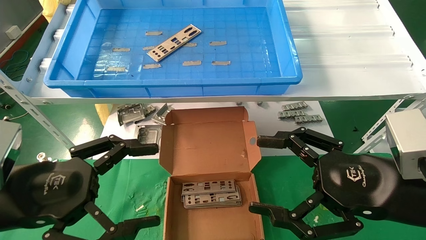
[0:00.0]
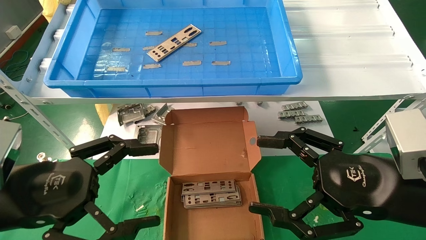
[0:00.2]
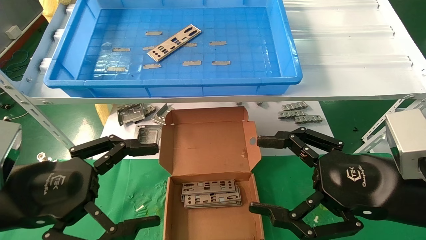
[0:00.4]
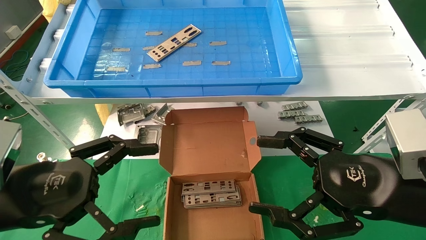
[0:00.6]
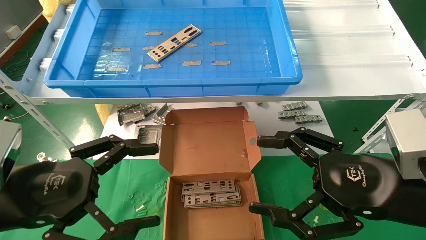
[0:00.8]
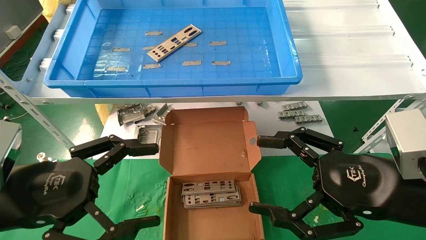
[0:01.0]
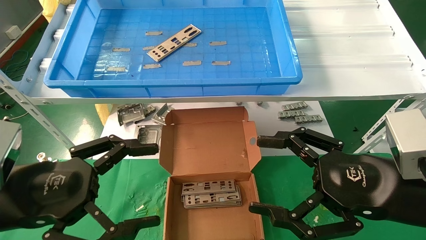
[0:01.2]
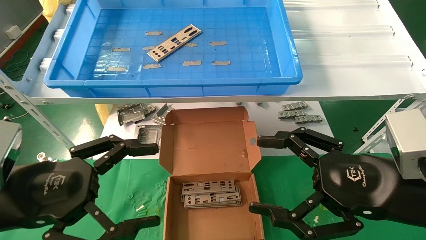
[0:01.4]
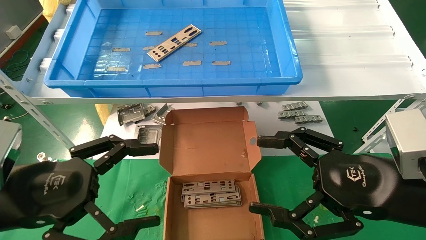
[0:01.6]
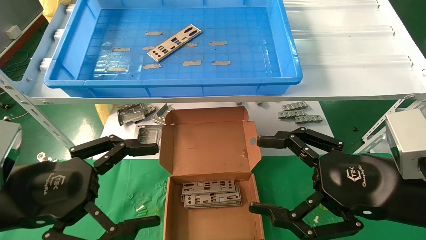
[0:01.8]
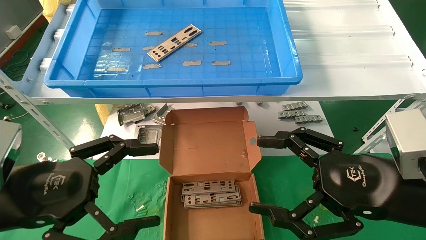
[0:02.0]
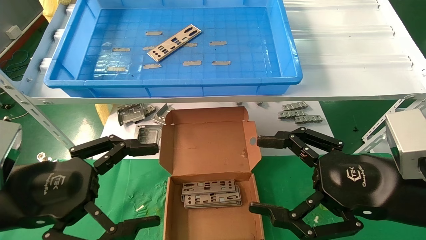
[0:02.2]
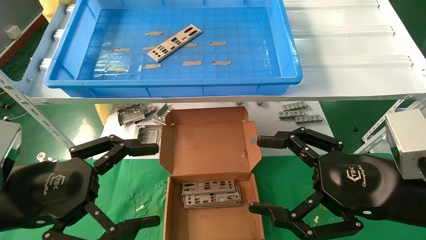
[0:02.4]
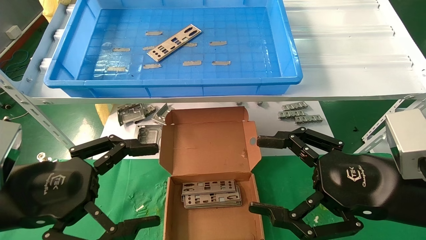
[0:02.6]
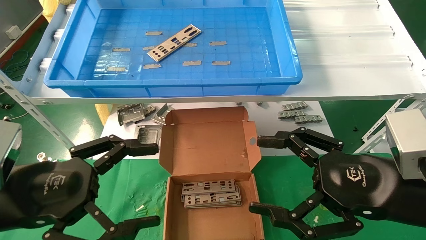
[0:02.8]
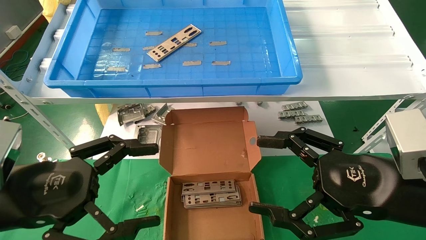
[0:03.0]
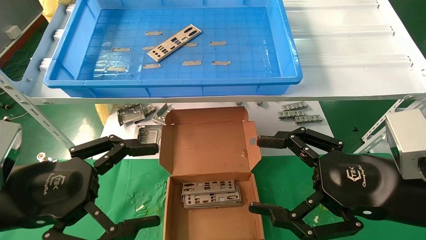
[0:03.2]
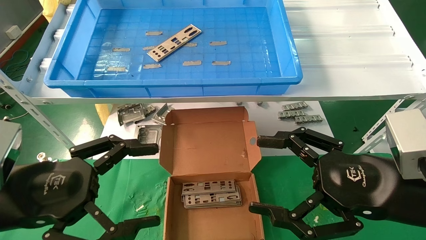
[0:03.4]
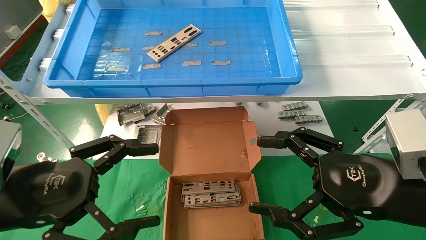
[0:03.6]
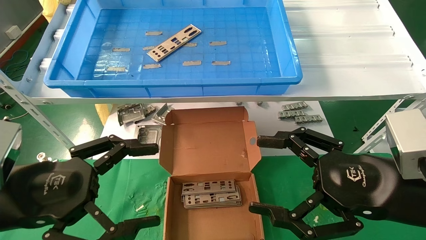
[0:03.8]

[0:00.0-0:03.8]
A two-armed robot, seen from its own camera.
Task of the whole recording: pick up the parts on the tray and put them in the cardboard box.
0:00.0 to 0:03.8: Both grippers stay put.

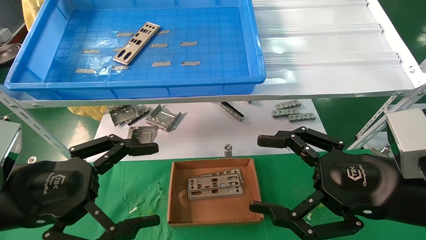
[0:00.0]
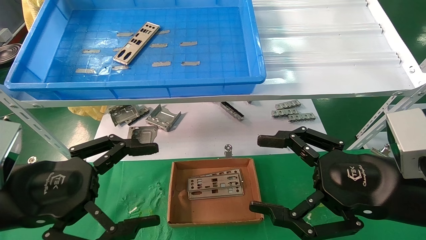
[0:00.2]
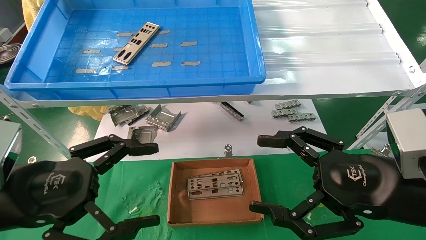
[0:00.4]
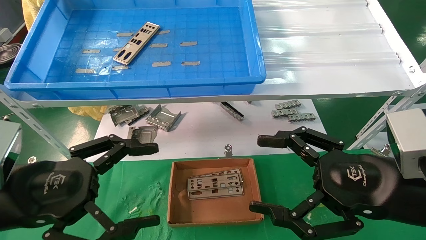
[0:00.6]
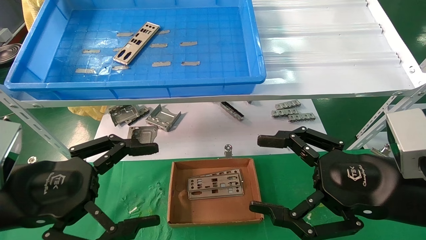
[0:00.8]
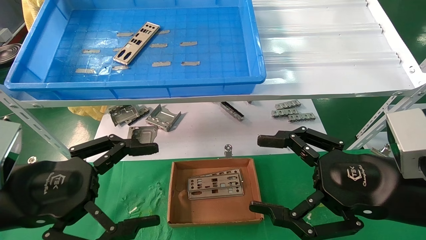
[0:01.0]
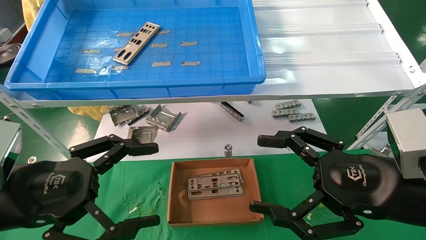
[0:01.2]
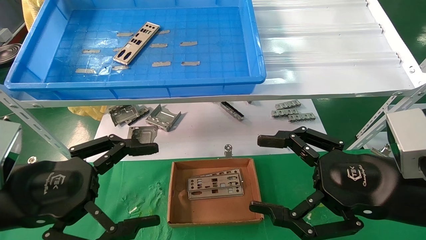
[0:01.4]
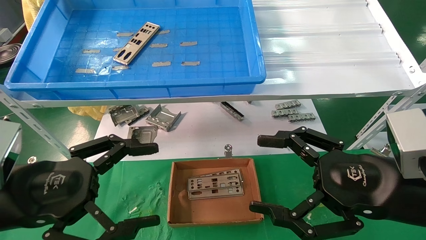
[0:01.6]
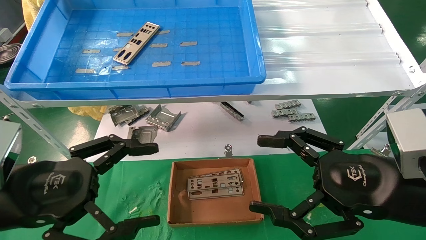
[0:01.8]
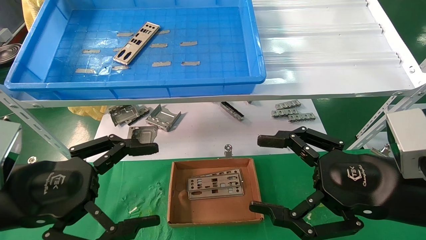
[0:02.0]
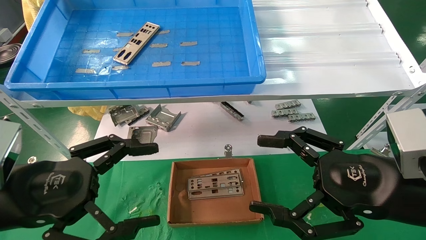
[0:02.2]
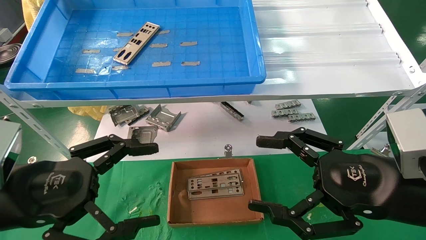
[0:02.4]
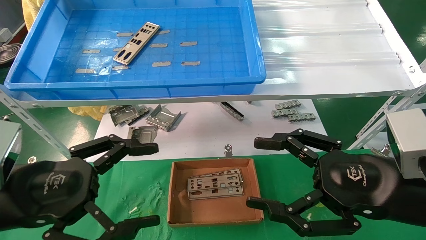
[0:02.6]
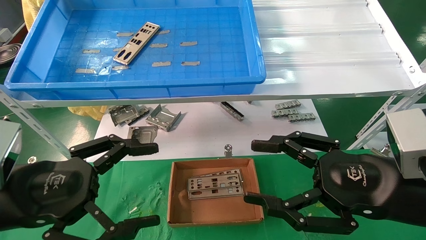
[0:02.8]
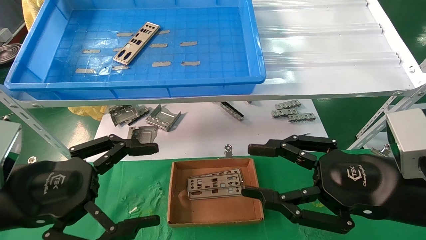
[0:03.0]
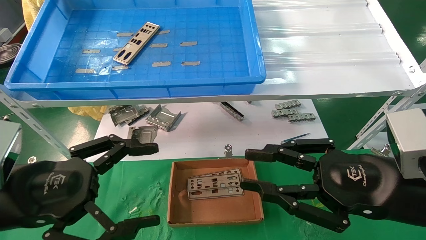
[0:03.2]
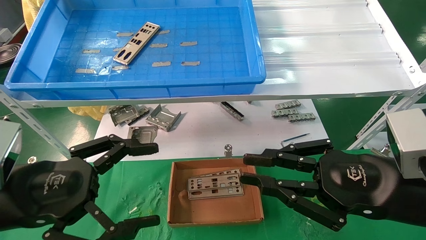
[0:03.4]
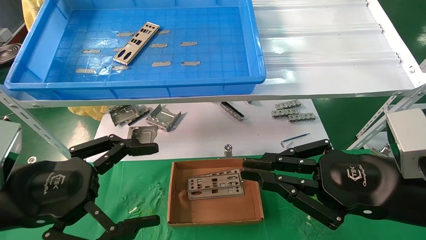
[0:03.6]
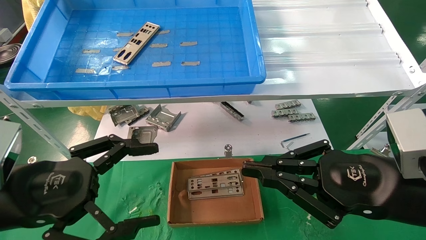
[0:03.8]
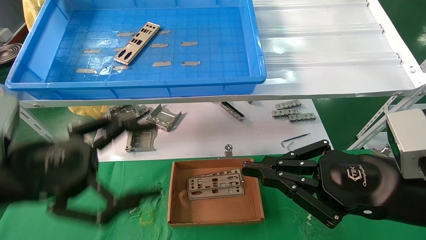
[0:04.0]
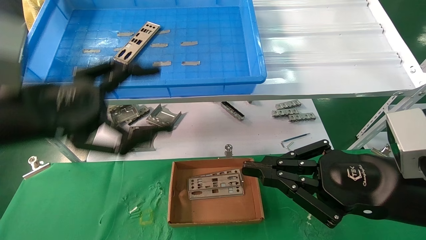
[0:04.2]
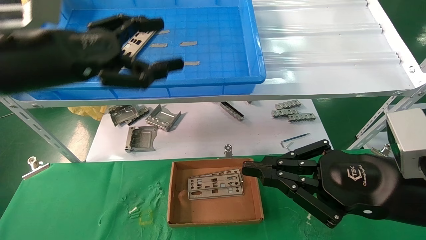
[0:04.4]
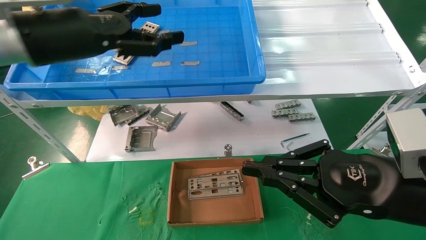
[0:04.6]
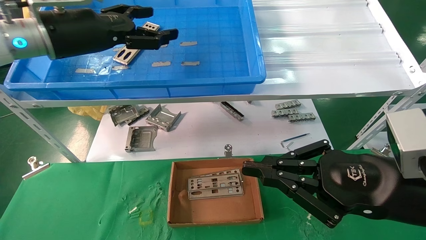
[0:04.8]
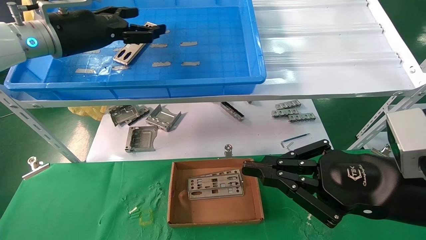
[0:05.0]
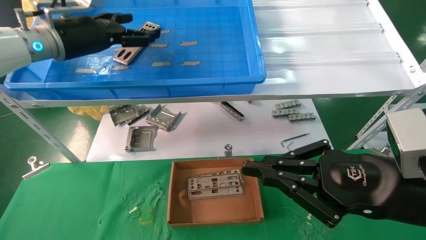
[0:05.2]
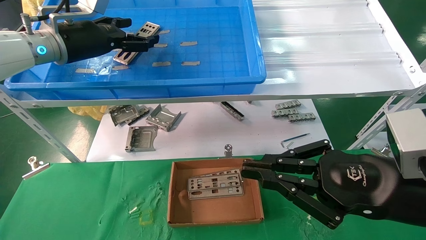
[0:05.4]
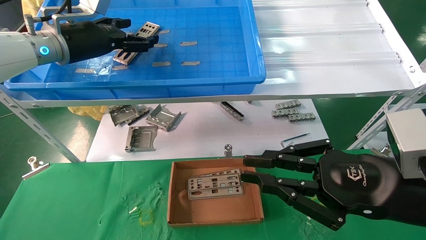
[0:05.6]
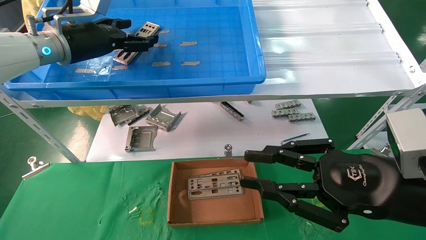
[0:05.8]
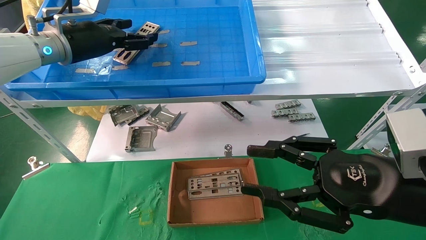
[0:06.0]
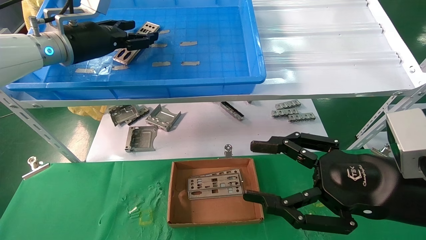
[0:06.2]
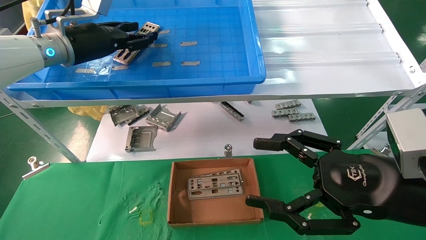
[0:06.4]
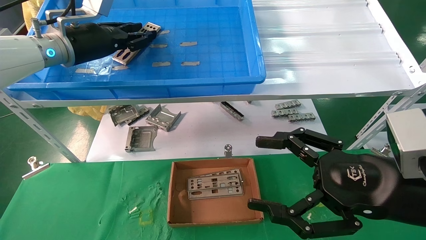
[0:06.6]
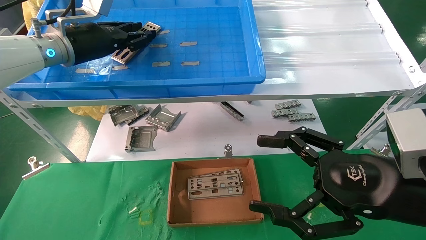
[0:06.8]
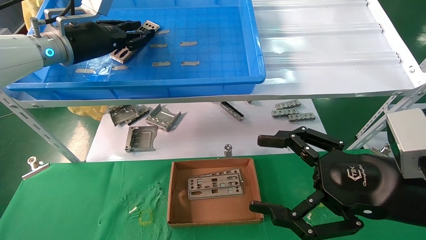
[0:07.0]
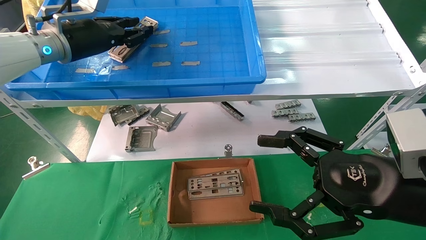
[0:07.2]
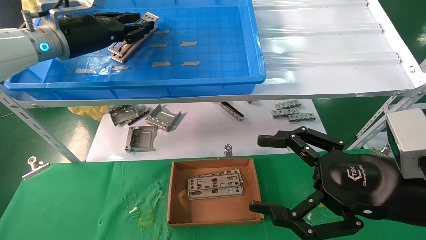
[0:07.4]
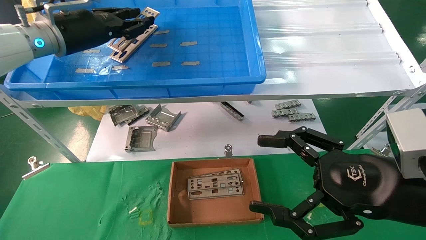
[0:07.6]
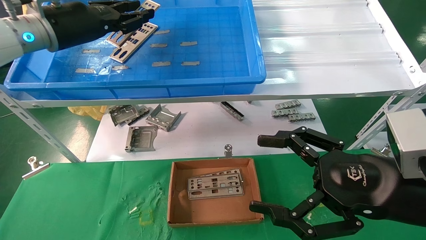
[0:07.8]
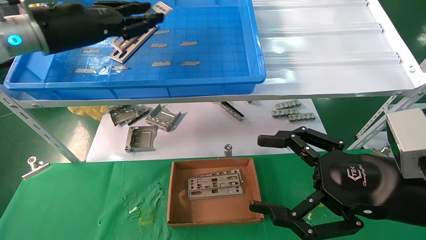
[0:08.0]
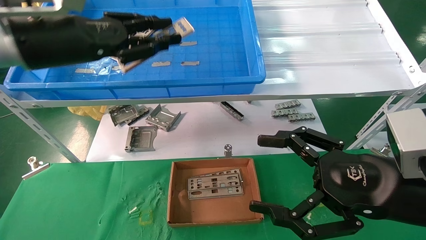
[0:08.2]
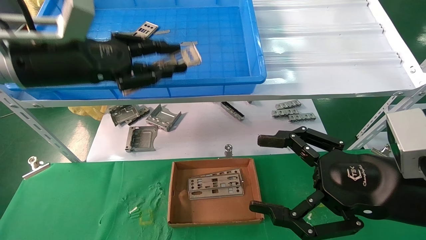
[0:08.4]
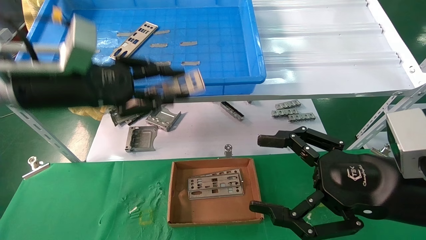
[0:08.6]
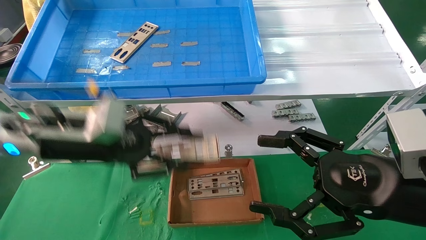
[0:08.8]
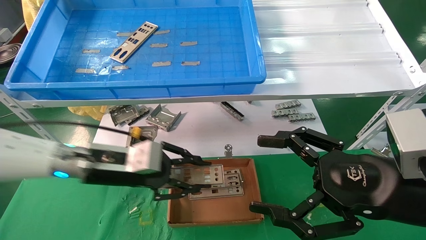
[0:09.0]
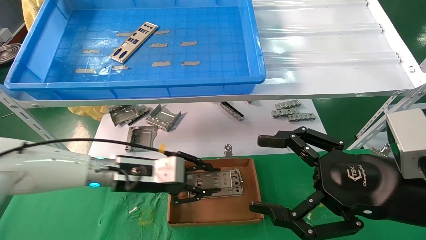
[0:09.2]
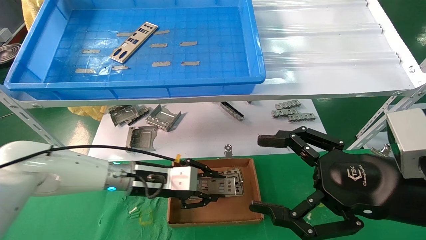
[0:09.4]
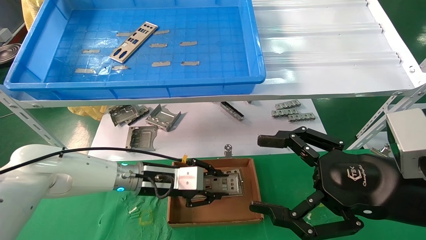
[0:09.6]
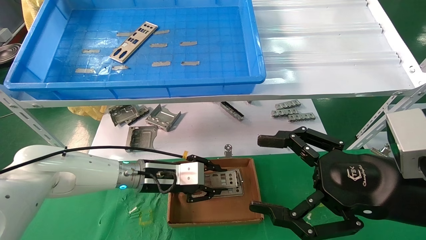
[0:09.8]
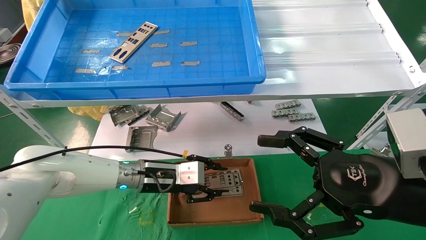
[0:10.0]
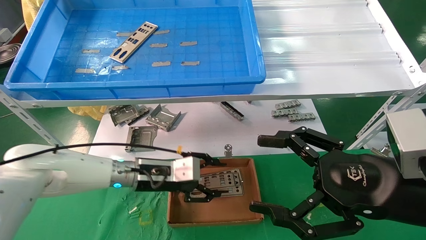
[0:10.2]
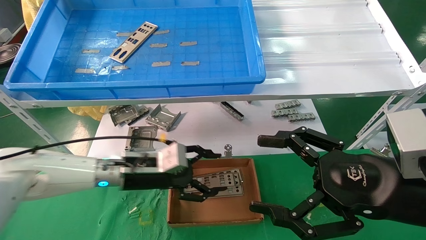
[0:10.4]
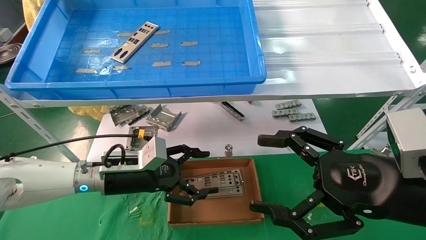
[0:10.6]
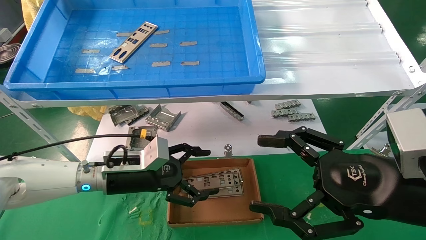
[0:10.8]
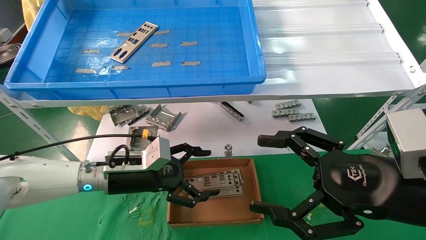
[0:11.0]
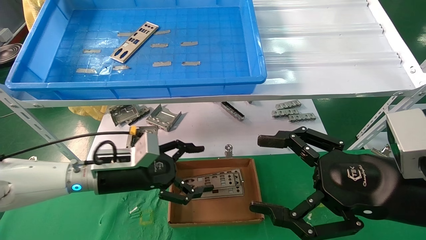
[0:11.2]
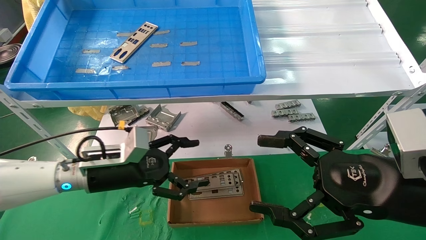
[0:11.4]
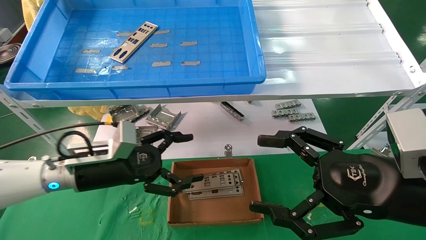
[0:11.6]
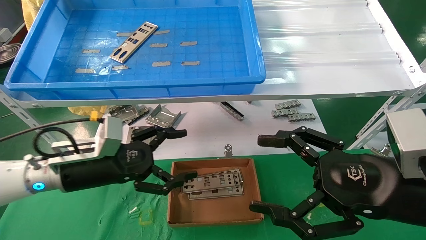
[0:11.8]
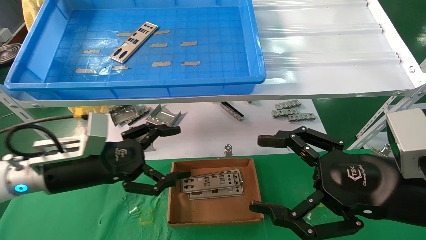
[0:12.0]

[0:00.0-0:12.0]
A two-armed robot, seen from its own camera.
Task of the whole recording: pick up the parts on the tray and put them in the cardboard box.
Step, 0:04.6 to 0:06.8: Pick up the IO bracket from the container box.
Step, 0:07.0 to 0:11.6: Place the IO bracket into the ingredient slot.
0:00.0 to 0:03.0: Neither gripper changes place.
0:03.0 to 0:04.4: The left gripper goes approximately 15 cm upward and forward; the right gripper closes.
0:04.4 to 0:06.0: The right gripper opens; the left gripper is displaced forward by roughly 15 cm.
0:06.0 to 0:07.6: The right gripper opens its fingers. Meanwhile the left gripper closes.
0:07.6 to 0:09.0: The left gripper moves downward, about 20 cm.
0:09.0 to 0:10.4: The left gripper moves downward, approximately 5 cm, and opens its fingers.
0:10.4 to 0:12.0: The left gripper shifts some 10 cm to the left, backward and upward, and opens up.

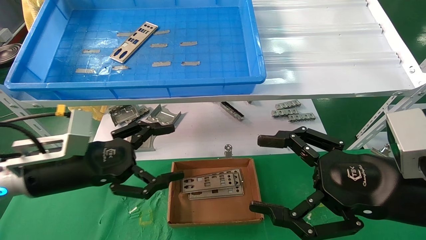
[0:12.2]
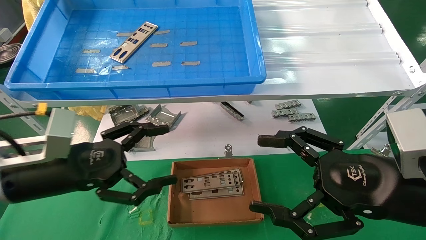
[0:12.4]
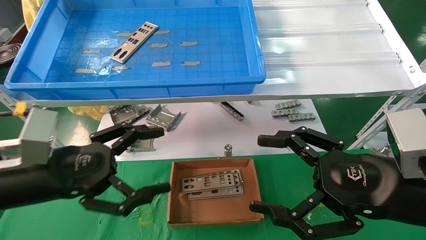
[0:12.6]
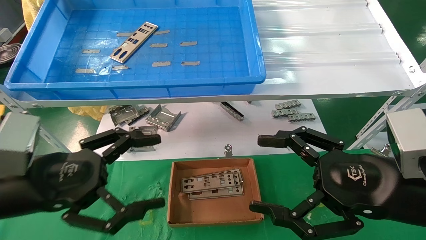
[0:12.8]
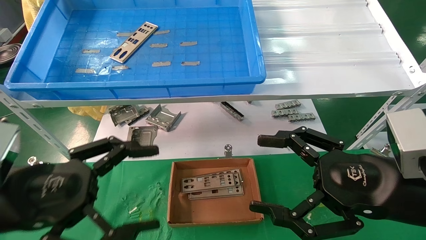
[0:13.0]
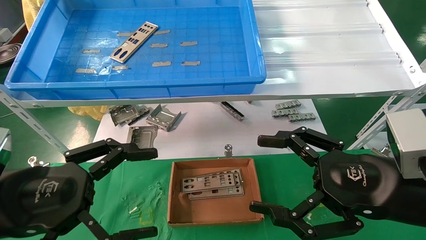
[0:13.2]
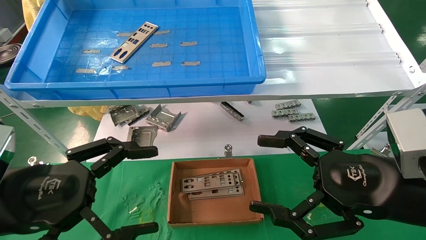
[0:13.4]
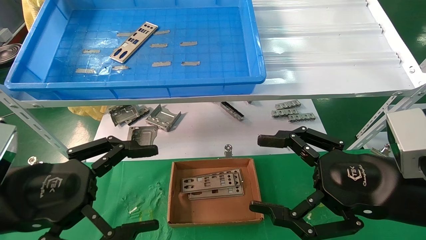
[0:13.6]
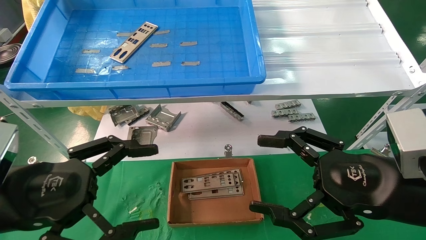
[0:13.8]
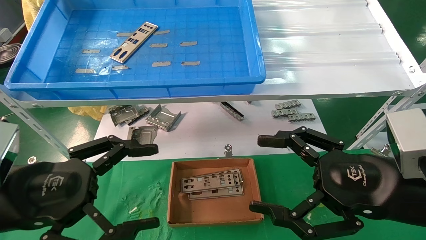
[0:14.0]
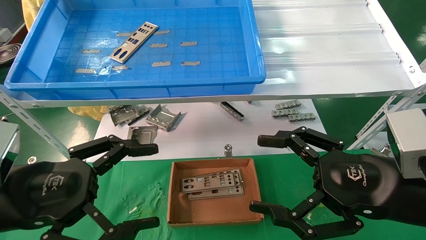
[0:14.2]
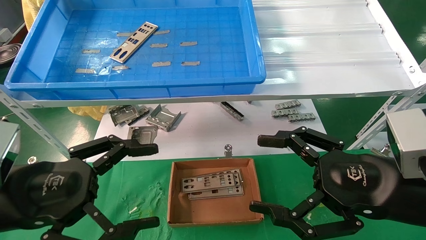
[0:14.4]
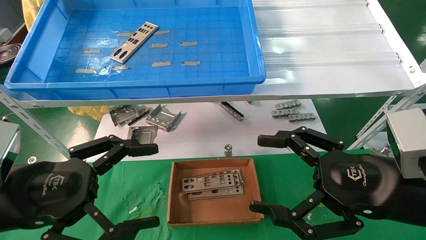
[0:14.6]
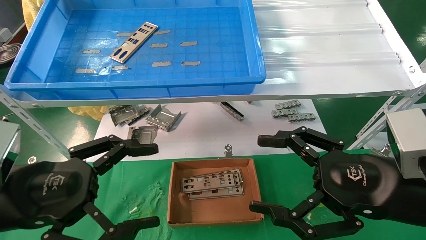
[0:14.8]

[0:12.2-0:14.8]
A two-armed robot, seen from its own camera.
Task of the whole recording: pick up the parts on the tray and put them in the cardboard box.
0:12.2 to 0:13.4: The left gripper is displaced backward by roughly 10 cm.
0:13.4 to 0:14.8: Both grippers stay put.
